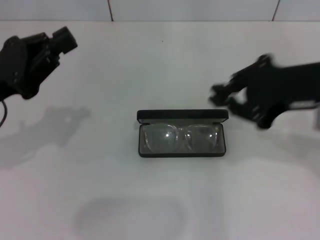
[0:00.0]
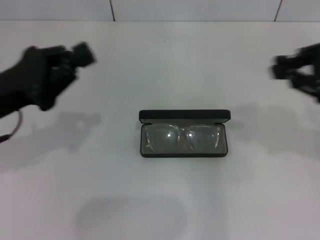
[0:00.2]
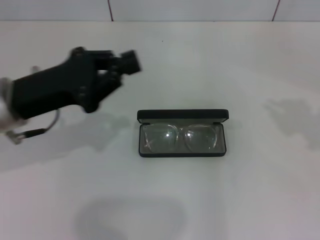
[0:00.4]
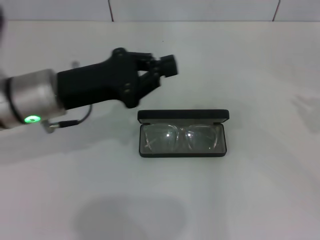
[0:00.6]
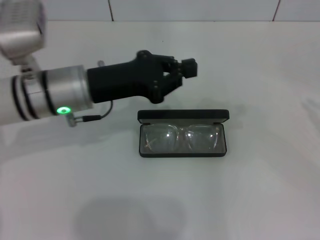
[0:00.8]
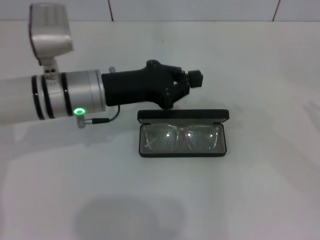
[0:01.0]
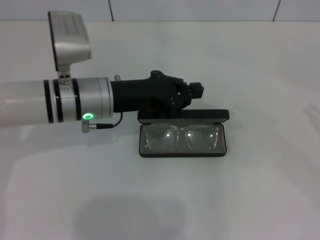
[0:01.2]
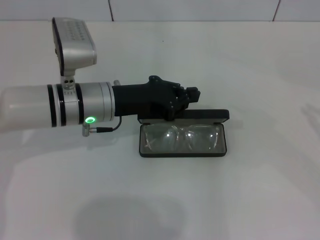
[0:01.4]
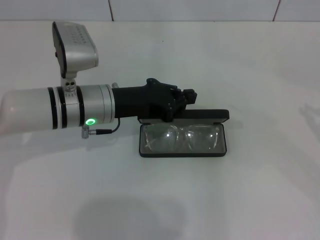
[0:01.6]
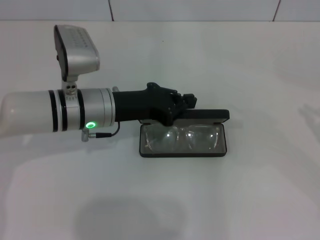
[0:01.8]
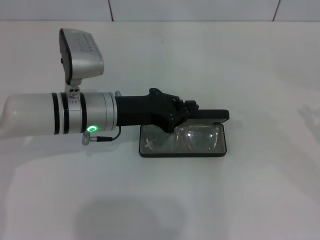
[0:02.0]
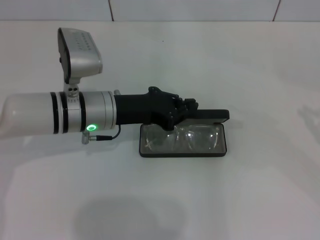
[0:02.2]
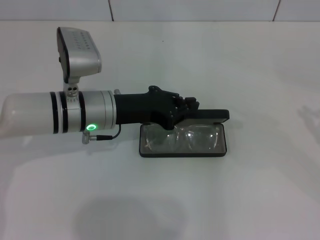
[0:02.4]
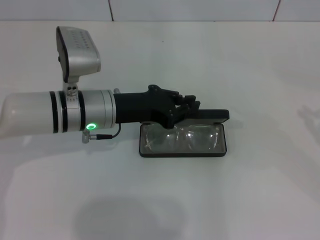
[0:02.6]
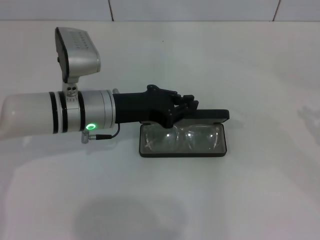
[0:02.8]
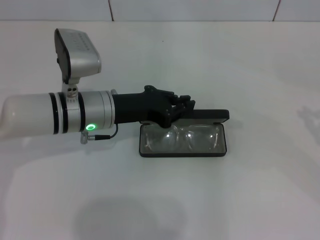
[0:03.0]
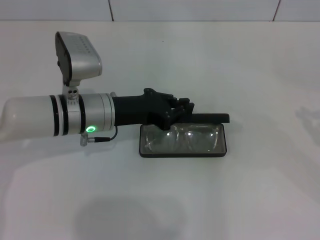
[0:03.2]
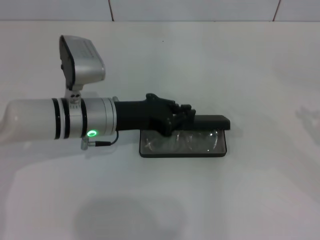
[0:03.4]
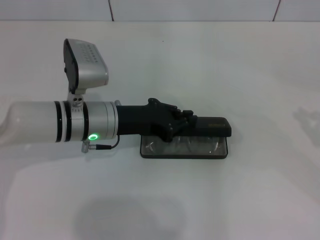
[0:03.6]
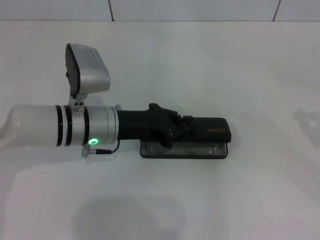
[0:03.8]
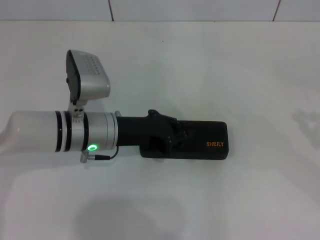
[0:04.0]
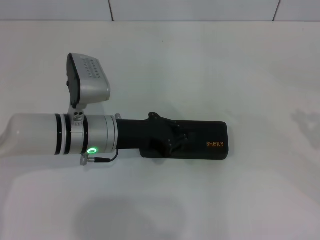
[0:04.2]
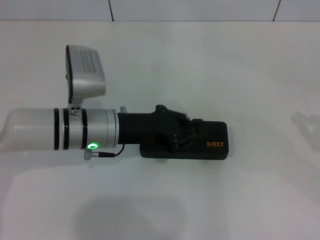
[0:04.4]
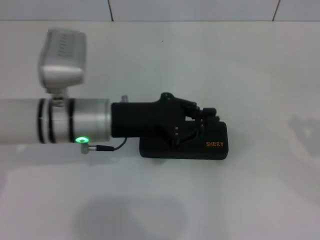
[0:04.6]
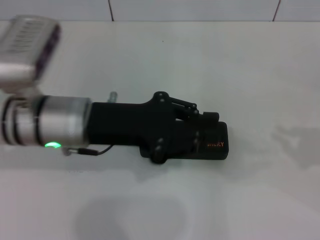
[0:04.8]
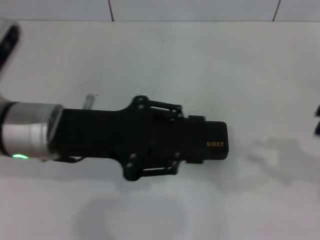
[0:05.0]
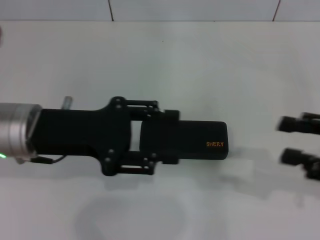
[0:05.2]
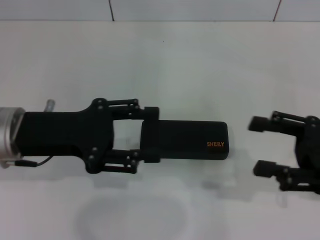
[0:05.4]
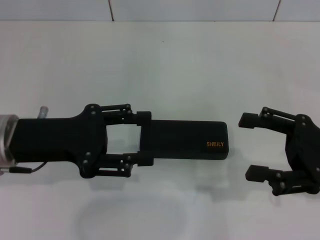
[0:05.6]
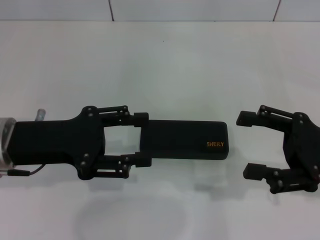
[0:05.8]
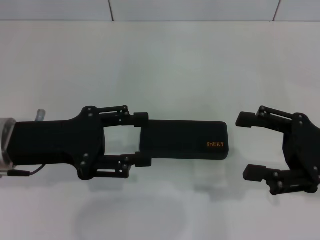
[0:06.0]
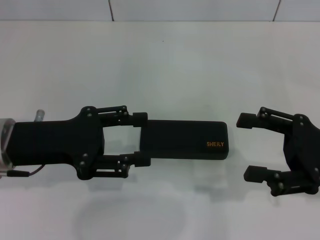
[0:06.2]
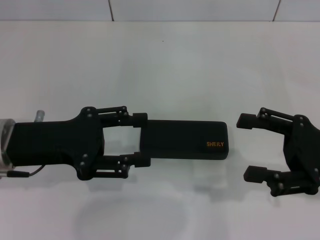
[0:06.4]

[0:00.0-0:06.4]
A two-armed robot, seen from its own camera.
Step, 0:00.0 to 0:04.2: Close the glasses case with your left hand.
0:00.0 to 0:01.6: The right gripper moves to the right, some 20 cm; the left gripper travels to the right and forward by some 15 cm.
0:01.6 to 0:03.2: The grippers stay close to where they were, moving slightly.
0:03.2 to 0:04.8: The left gripper heads upward and backward, covering roughly 10 cm.
0:04.8 to 0:06.4: The grippers both shift to the left by about 10 cm. The right gripper opens its fingers. The left gripper opens up.

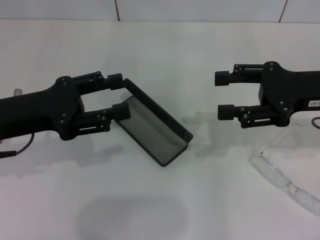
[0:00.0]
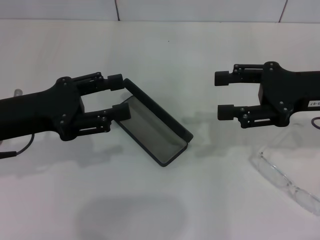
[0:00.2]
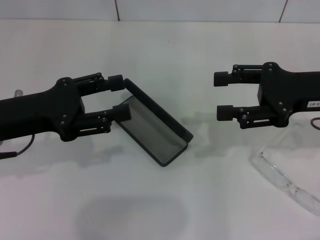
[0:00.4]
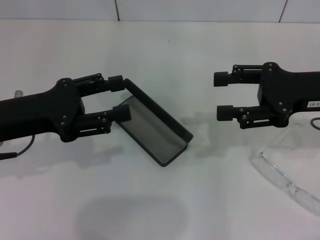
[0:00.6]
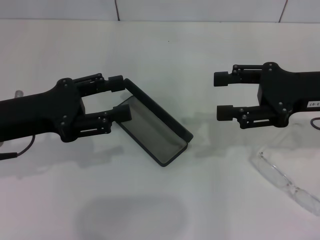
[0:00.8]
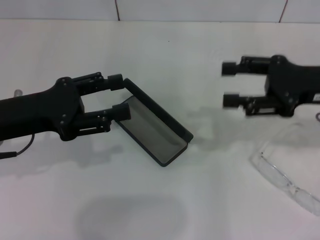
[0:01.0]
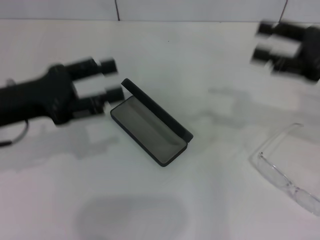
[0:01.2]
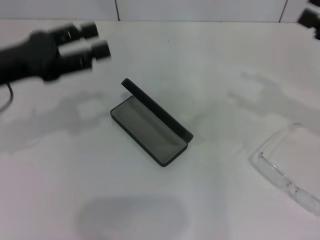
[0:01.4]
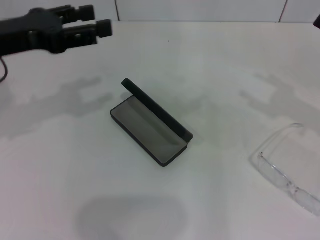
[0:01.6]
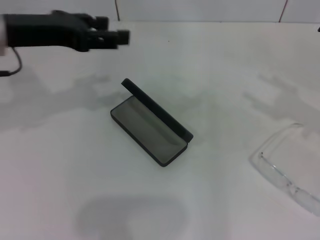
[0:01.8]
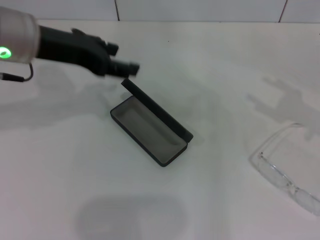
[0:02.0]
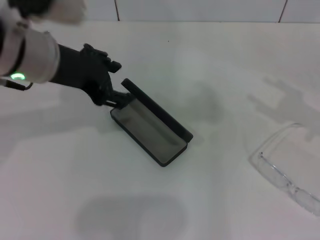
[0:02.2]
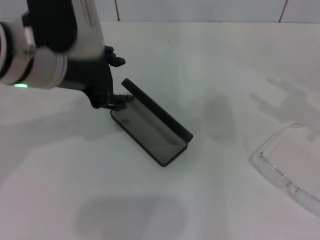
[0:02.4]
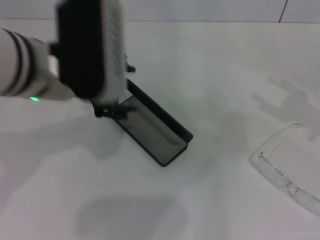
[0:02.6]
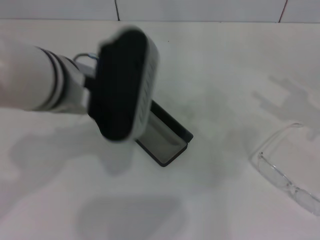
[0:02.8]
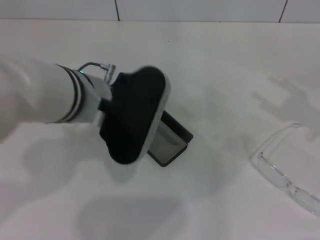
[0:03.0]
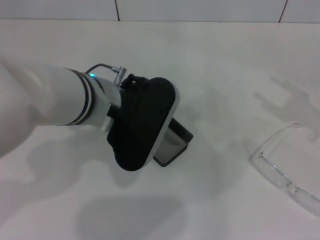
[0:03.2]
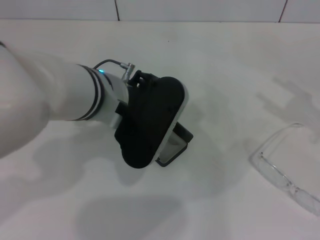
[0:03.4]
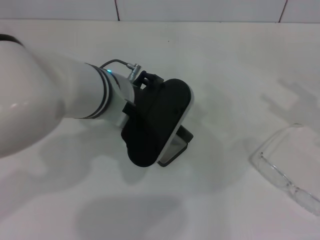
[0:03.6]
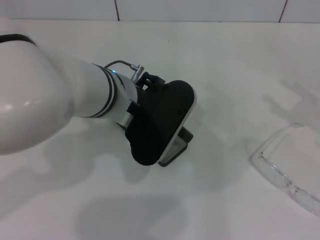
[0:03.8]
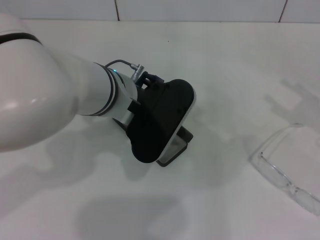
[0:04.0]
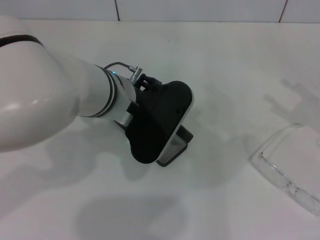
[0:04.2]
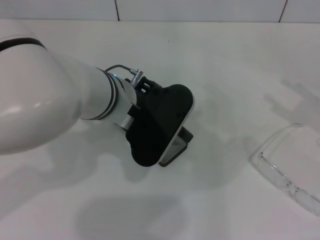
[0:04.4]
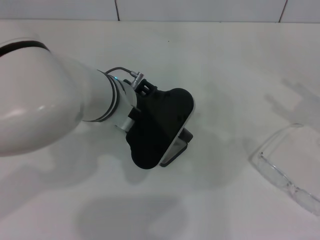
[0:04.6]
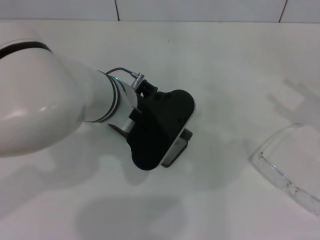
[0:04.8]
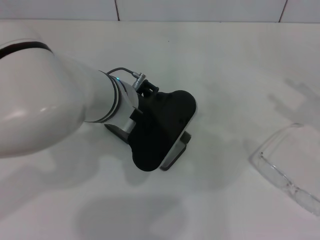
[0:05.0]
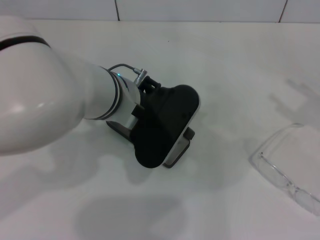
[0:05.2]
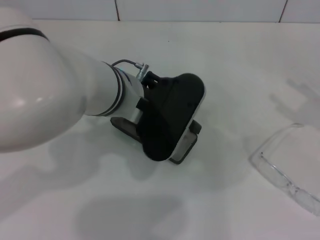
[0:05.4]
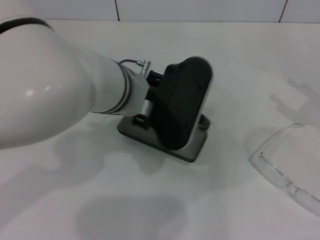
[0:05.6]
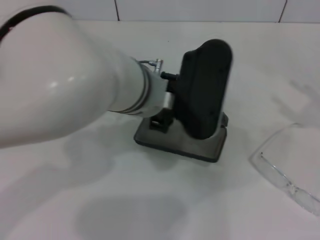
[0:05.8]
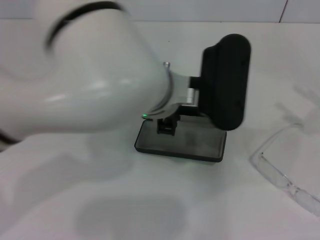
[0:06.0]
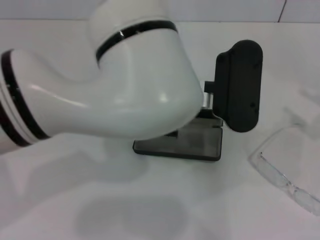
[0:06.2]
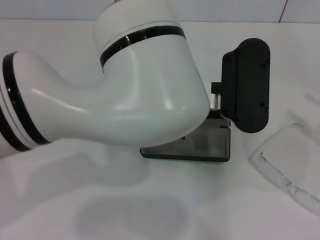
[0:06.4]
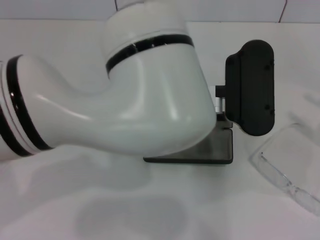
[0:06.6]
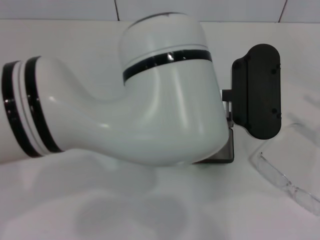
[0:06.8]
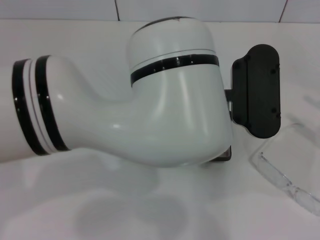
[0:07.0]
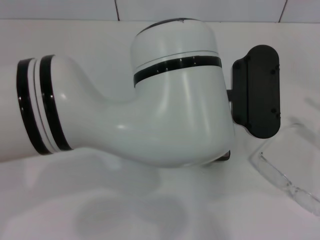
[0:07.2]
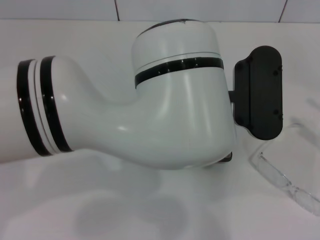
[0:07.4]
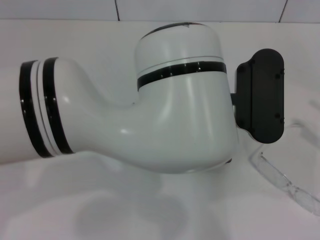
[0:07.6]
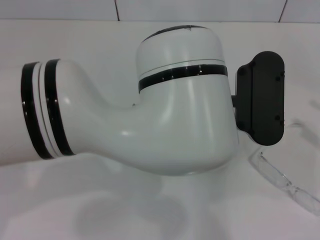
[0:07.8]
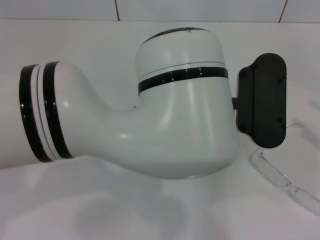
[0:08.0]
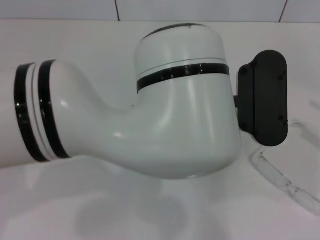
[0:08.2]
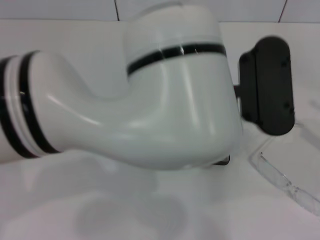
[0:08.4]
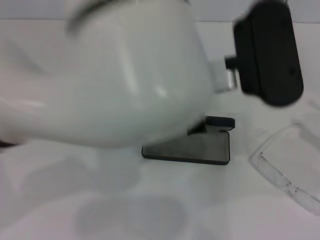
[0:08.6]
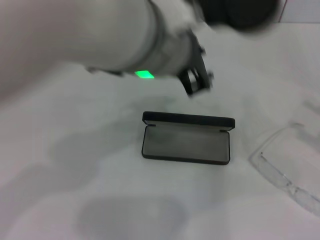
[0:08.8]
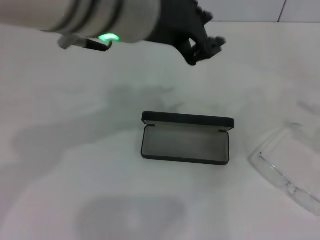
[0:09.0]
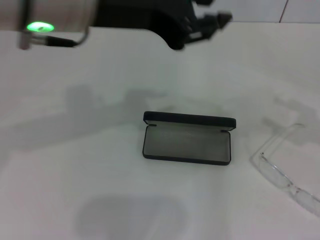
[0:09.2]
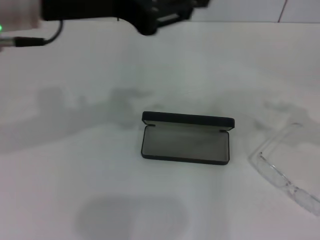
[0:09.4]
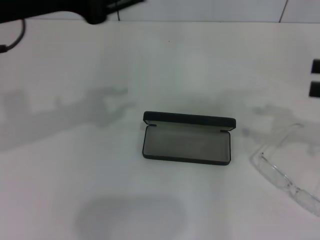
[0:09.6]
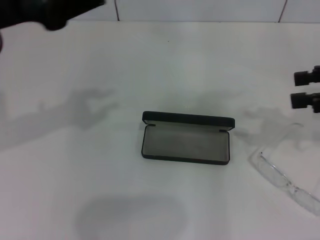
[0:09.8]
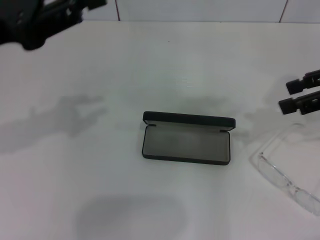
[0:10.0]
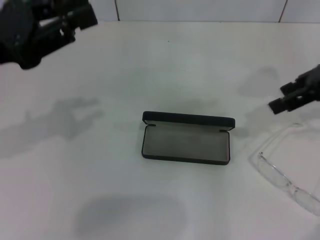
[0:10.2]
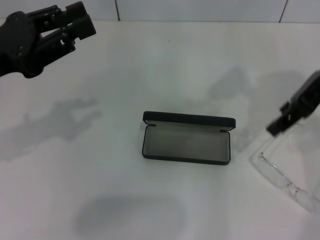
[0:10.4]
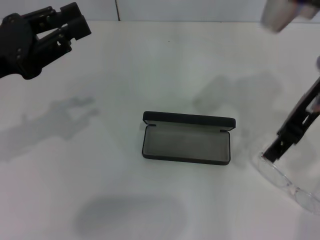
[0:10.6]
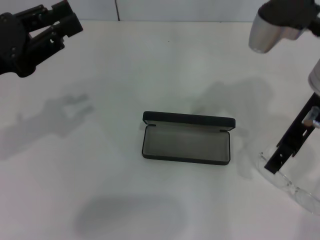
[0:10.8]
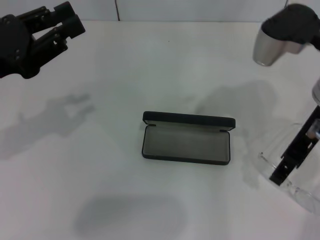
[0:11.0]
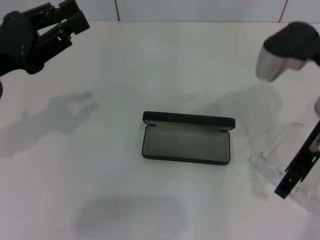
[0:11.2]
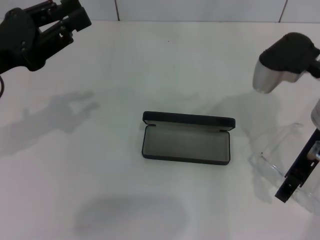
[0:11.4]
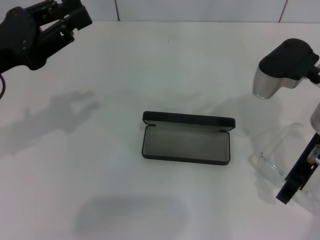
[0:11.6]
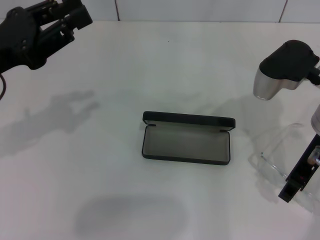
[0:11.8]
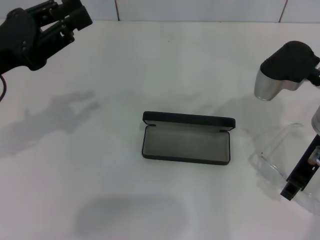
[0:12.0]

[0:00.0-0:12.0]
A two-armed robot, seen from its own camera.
Step, 0:00.0 to 0:04.2: Grab the glasses case with your left hand.
Step, 0:04.4 to 0:07.8: Place the glasses case in the center of the table with your left hand.
0:00.0 to 0:01.6: The right gripper shifts some 10 cm to the right. Meanwhile the left gripper is displaced upward by some 5 cm.
0:01.6 to 0:03.0: The left gripper travels to the right by roughly 15 cm.
0:03.0 to 0:04.4: The grippers move only a little.
0:04.4 to 0:06.0: The left gripper moves to the right, approximately 5 cm, and closes.
0:07.6 to 0:09.0: The left gripper travels upward and to the left by approximately 15 cm.
0:09.0 to 0:10.4: The right gripper travels to the left, forward and upward by approximately 25 cm. Meanwhile the left gripper moves to the left and downward, about 25 cm.
0:10.4 to 0:12.0: The right gripper heads downward, covering about 10 cm.

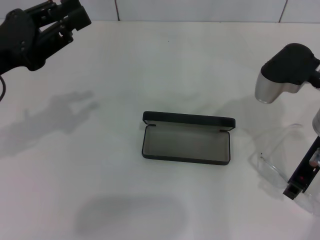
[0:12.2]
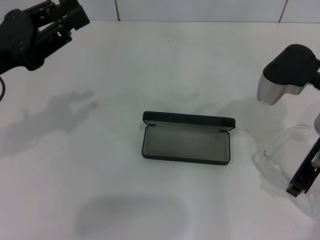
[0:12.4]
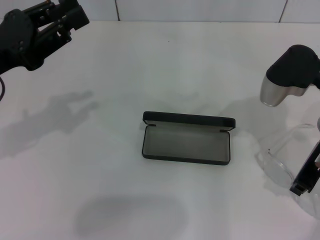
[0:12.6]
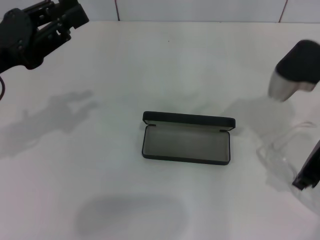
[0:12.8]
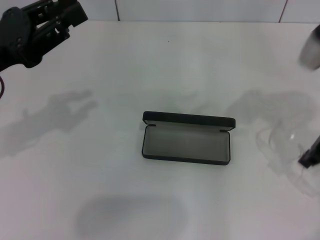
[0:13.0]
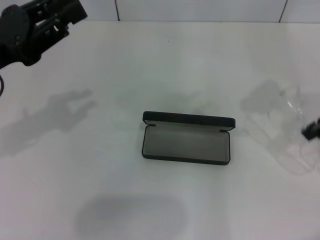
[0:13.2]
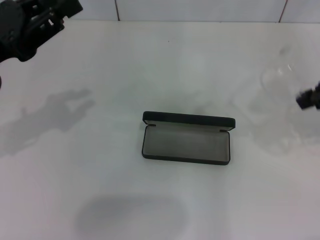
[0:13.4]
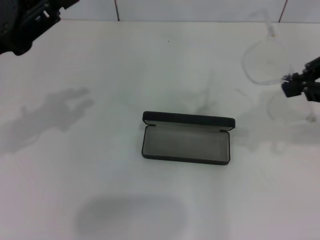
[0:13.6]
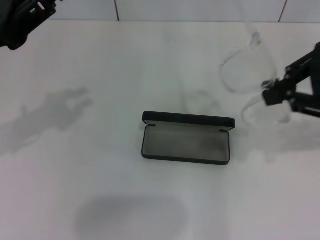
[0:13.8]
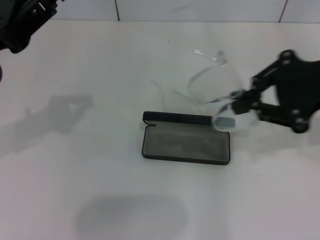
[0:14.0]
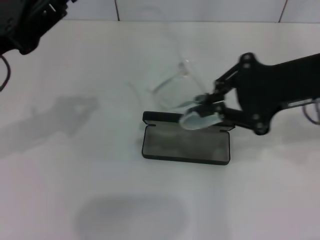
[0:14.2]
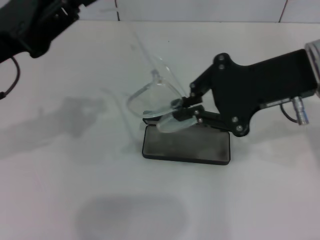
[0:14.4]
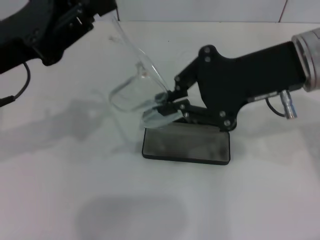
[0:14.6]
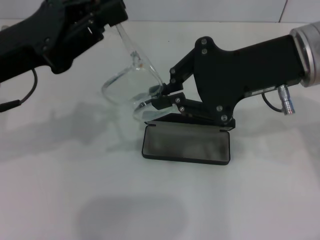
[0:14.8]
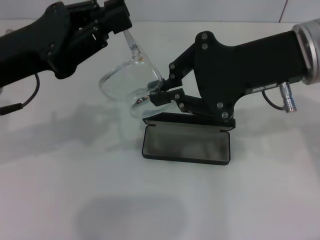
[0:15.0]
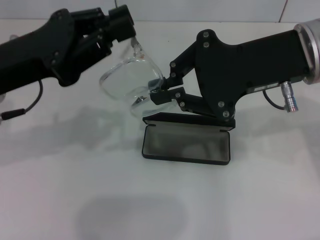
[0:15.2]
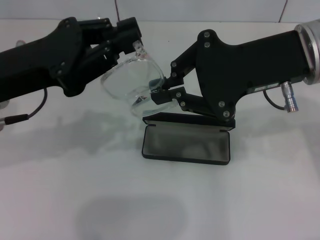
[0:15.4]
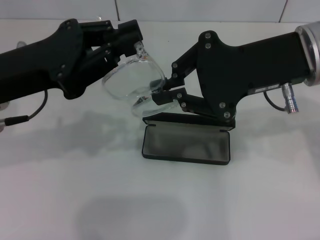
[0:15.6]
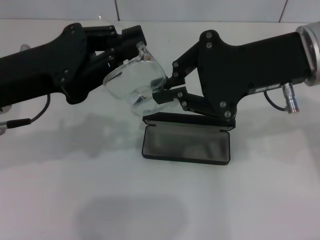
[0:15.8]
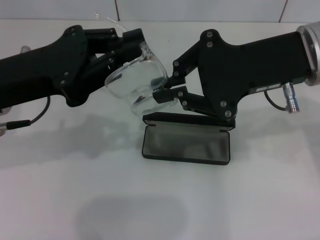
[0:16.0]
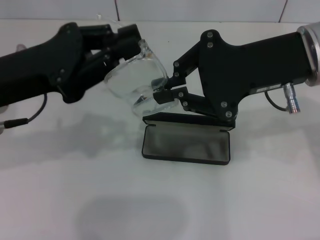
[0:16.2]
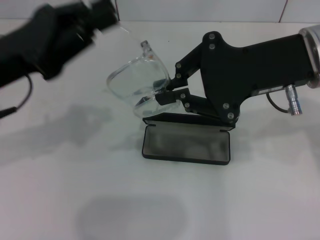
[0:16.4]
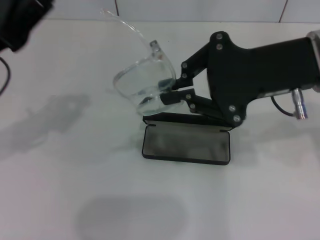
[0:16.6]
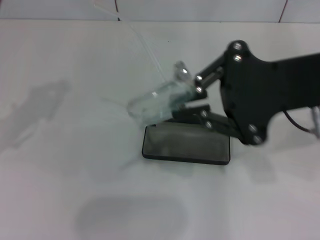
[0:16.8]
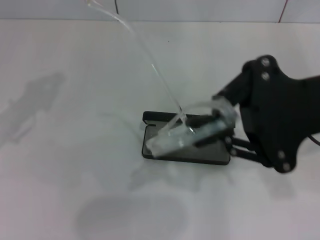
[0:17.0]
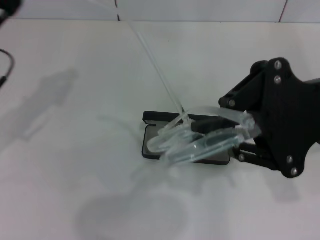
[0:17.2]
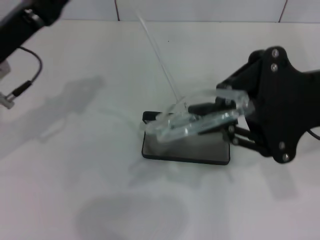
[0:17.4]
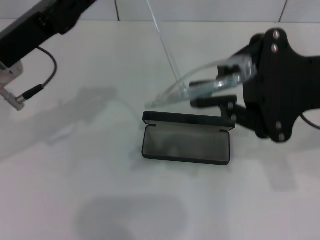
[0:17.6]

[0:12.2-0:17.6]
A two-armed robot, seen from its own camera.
0:12.2 to 0:13.6: The right gripper heads upward and to the right, covering about 15 cm, and closes its fingers.
0:13.6 to 0:15.0: The right gripper is displaced to the left by roughly 10 cm.
0:15.0 to 0:16.2: The grippers stay close to where they were, moving slightly.
